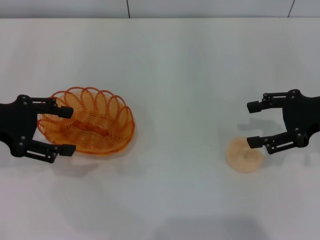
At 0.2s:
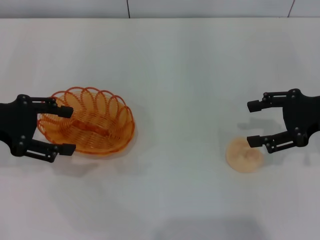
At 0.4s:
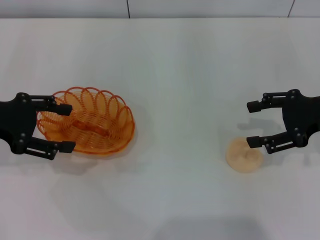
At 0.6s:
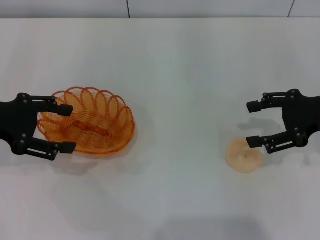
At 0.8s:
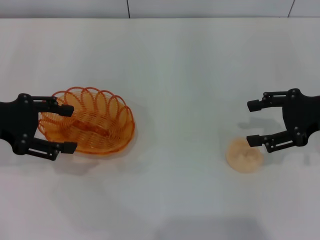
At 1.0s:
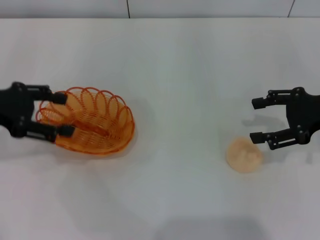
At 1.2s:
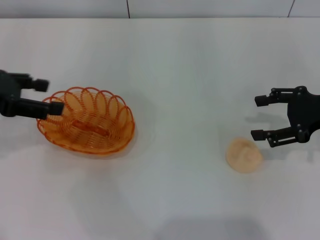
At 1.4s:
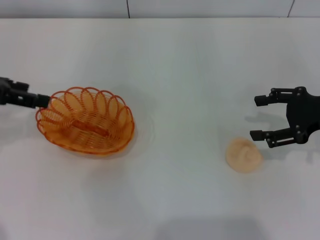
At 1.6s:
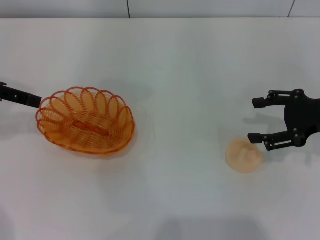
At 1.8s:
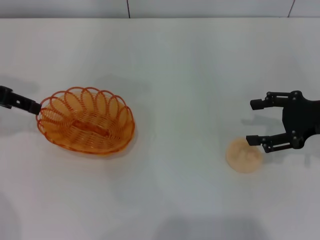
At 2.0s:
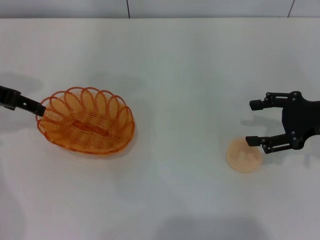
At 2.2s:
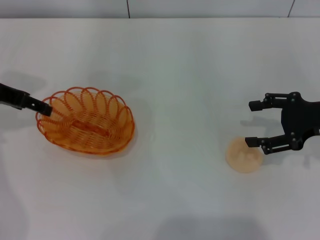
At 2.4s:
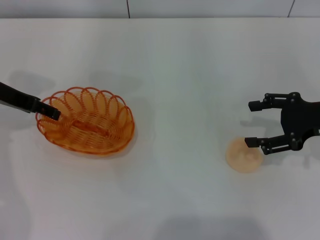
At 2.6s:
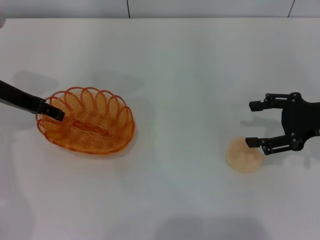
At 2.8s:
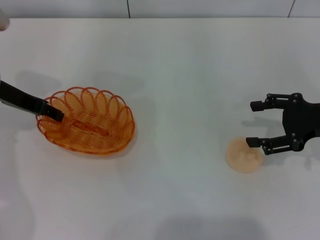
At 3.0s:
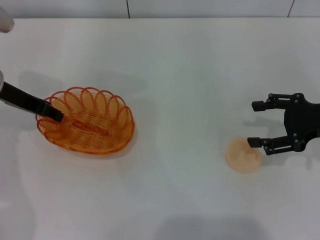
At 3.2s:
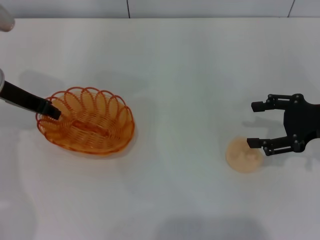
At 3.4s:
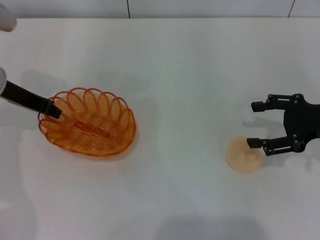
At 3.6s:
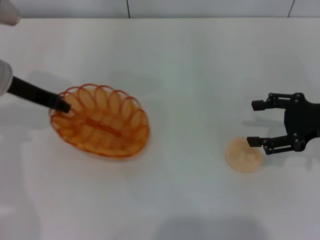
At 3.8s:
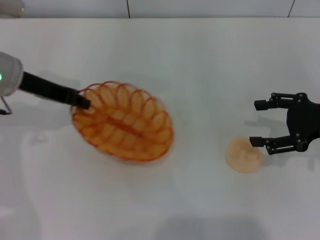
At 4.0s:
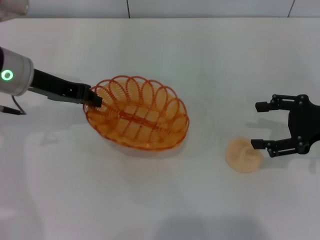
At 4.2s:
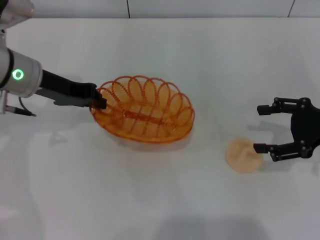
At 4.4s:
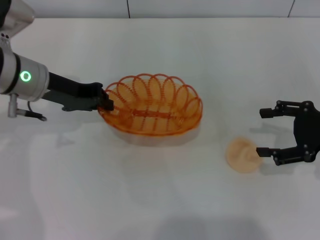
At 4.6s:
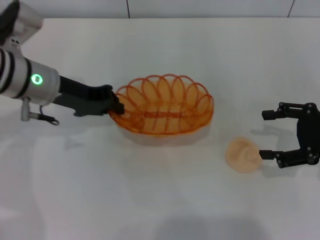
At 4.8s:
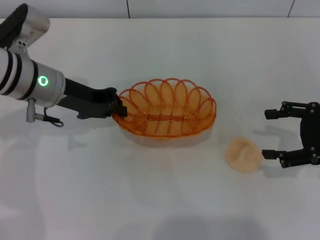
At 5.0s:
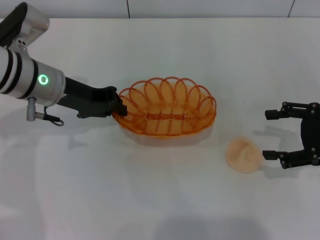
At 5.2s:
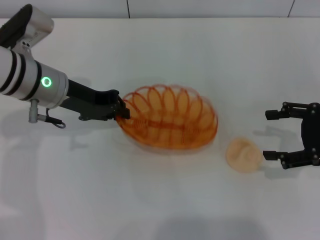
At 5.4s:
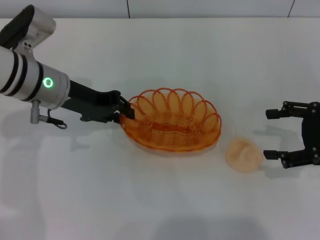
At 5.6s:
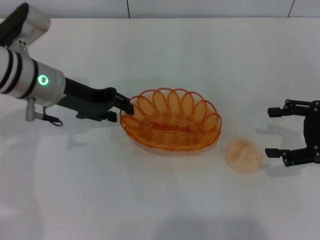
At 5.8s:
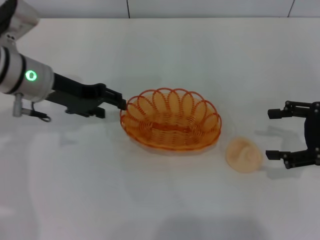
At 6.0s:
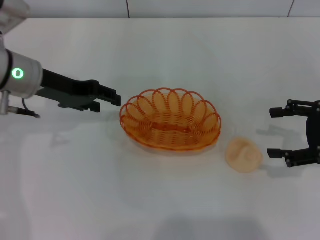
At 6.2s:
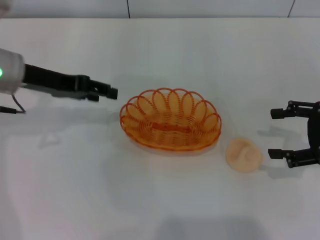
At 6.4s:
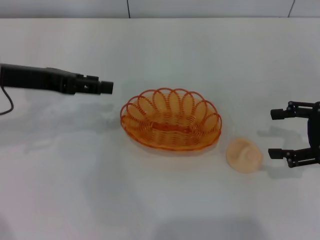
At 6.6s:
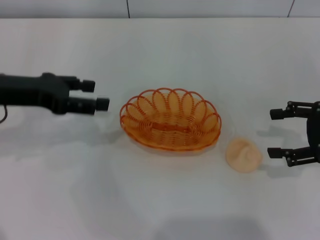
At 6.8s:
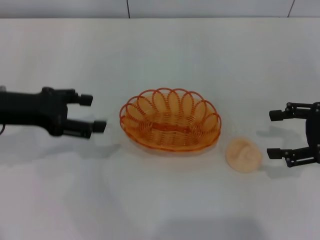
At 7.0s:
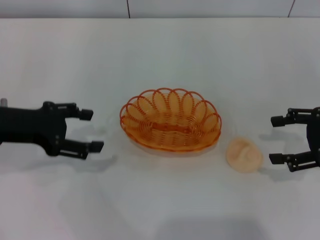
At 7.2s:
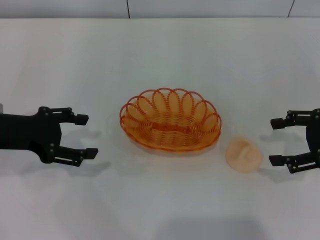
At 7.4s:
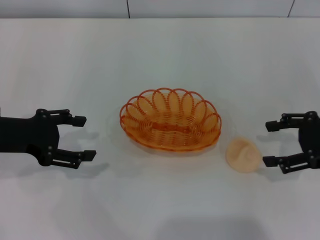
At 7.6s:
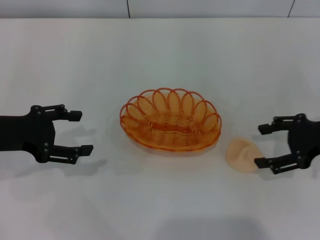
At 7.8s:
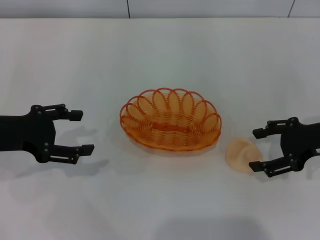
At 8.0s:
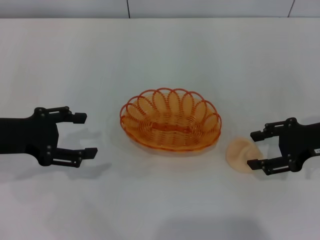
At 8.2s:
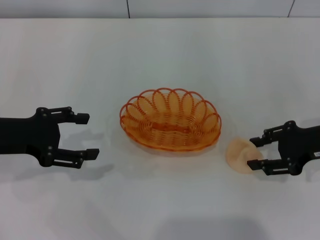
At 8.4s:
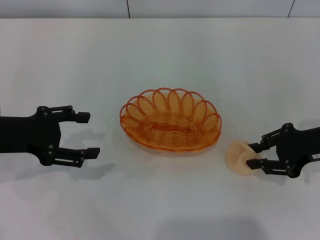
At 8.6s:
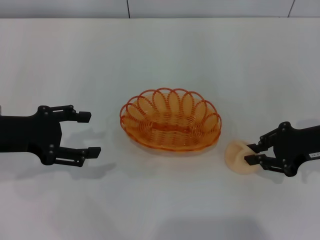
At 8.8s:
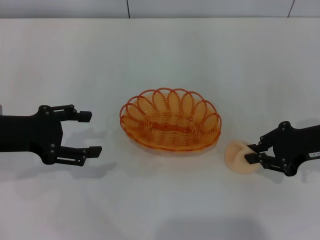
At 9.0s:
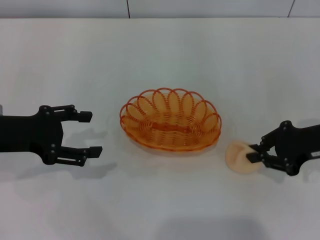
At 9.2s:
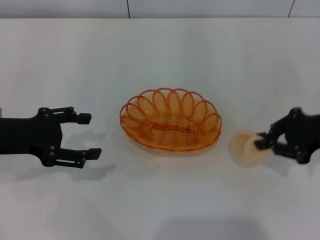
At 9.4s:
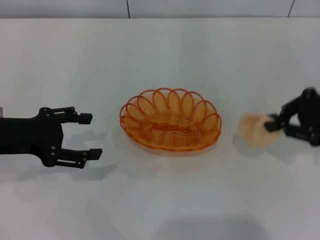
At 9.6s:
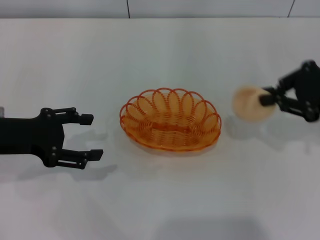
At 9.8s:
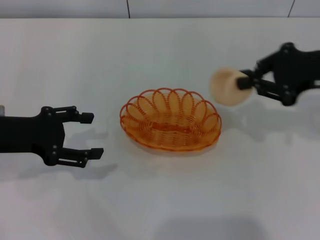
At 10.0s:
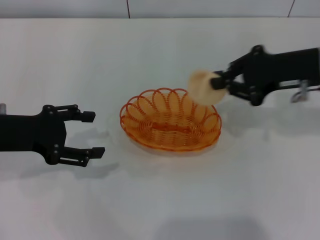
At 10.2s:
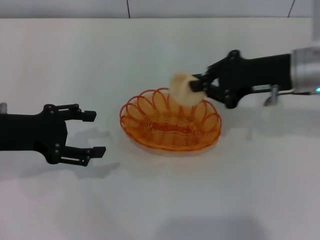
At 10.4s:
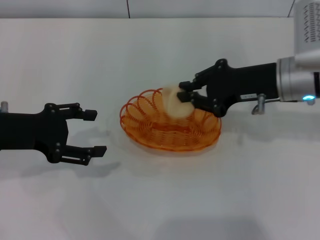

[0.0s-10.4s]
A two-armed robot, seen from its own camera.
Step, 0.0s to 3.6s: Pick up the basket with the left gripper.
Step, 4.0s to 5.8s: Place the basket in the center of view with the left gripper.
Step, 6.0s to 9.4s: Pick up the egg yolk pastry with the right gripper.
0.0s to 1.4s: The left gripper travels upward by roughly 5 cm.
1.4s to 3.0s: The left gripper moves downward, forward and to the right, approximately 10 cm.
3.0s to 4.4s: The left gripper heads to the right, covering roughly 5 cm, and closes.
4.4s to 6.0s: The left gripper opens its fingers.
6.0s to 7.4s: The left gripper travels backward and to the left by about 10 cm.
7.4s to 9.0s: The right gripper closes.
9.0s to 10.4s: The right gripper is displaced to the left by about 10 cm.

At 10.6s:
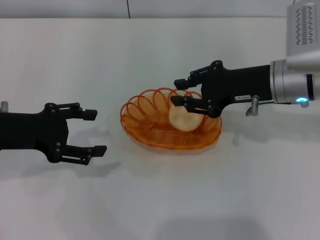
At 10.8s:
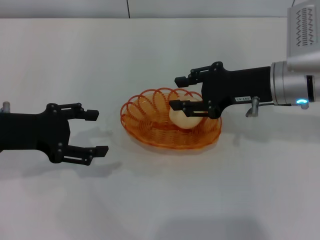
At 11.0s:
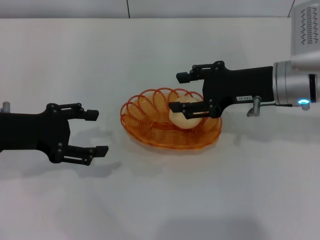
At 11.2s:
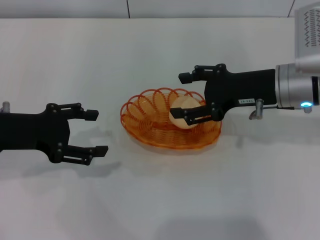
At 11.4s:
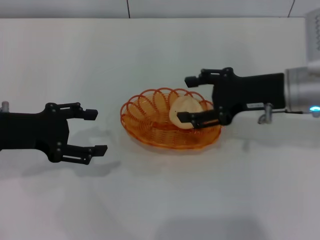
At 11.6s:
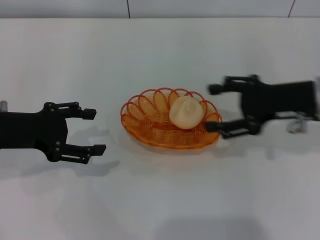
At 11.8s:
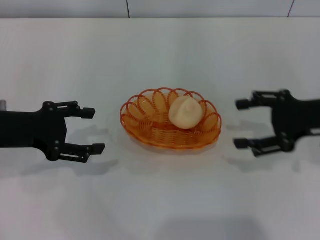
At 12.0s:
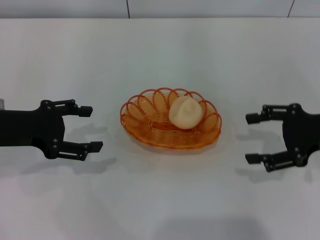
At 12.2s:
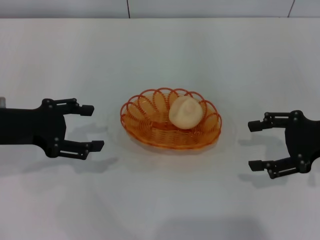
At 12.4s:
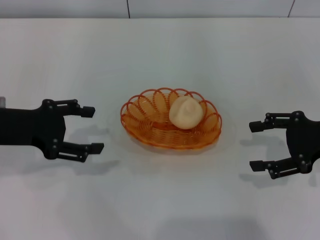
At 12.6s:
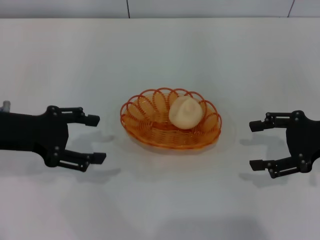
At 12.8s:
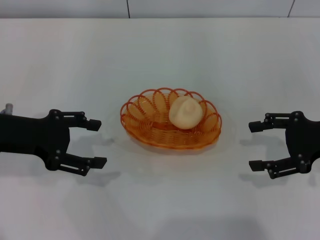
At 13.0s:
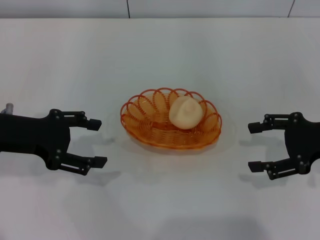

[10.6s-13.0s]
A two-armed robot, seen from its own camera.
10.6s to 11.8s: The right gripper goes approximately 10 cm to the right, and opens.
11.8s to 13.0s: There are only small adjustments of the grippers.
